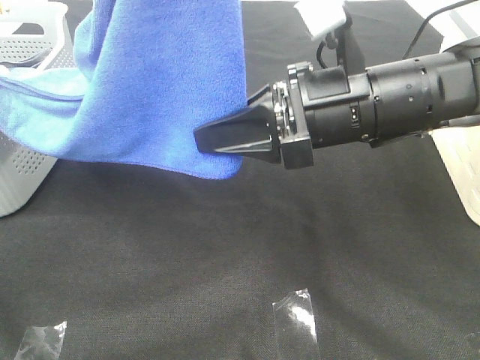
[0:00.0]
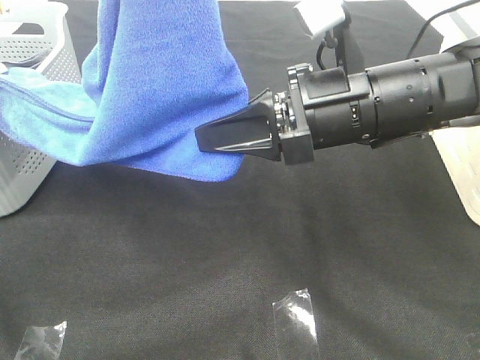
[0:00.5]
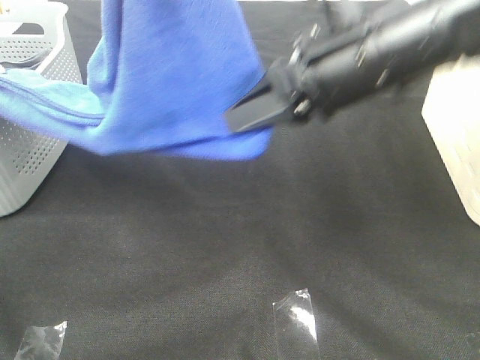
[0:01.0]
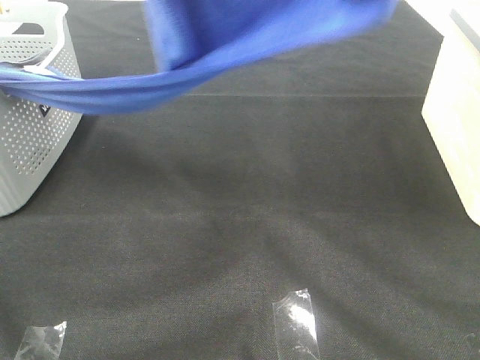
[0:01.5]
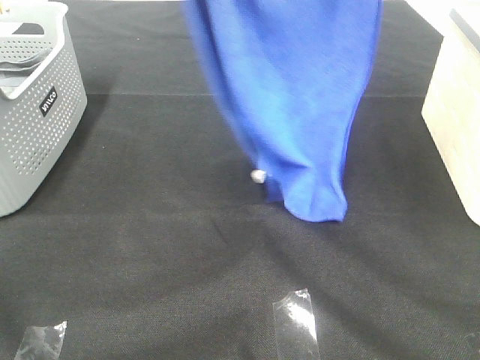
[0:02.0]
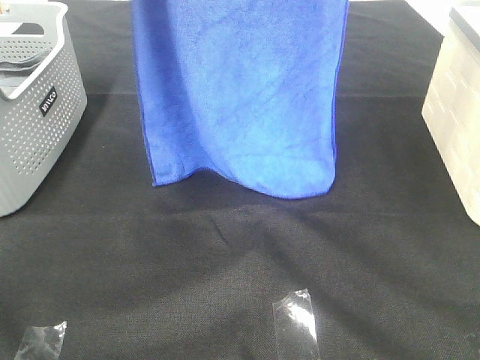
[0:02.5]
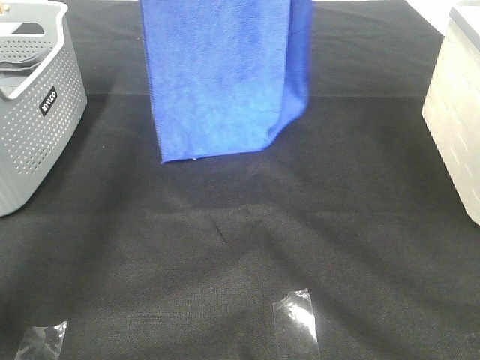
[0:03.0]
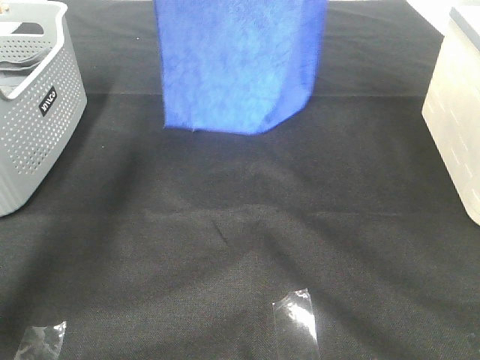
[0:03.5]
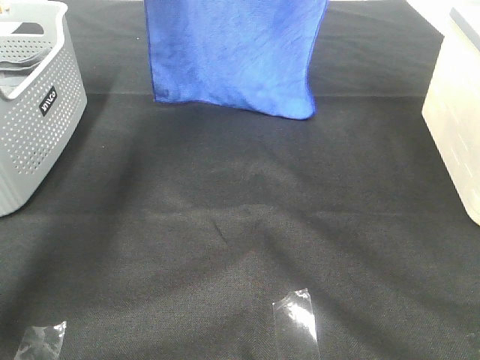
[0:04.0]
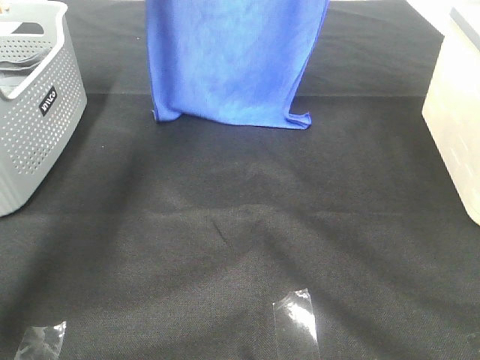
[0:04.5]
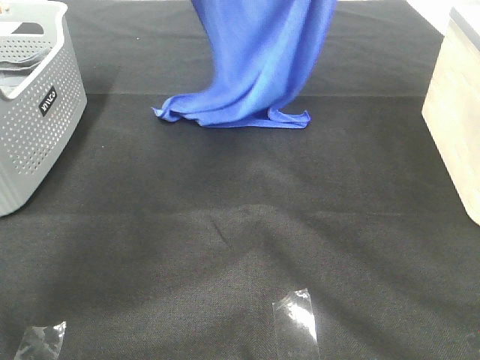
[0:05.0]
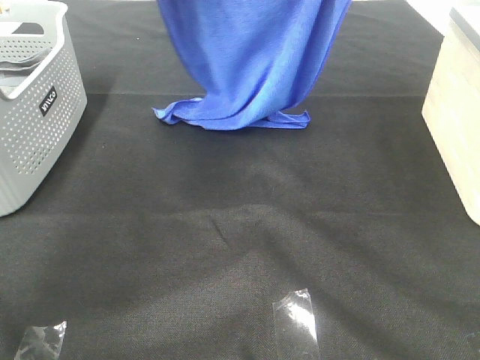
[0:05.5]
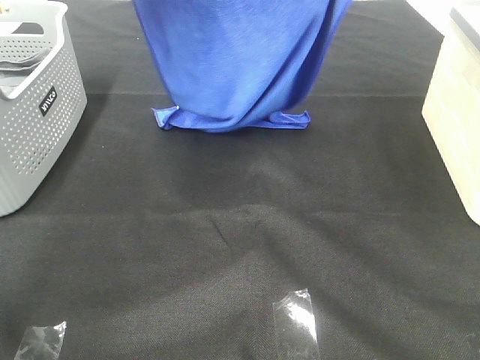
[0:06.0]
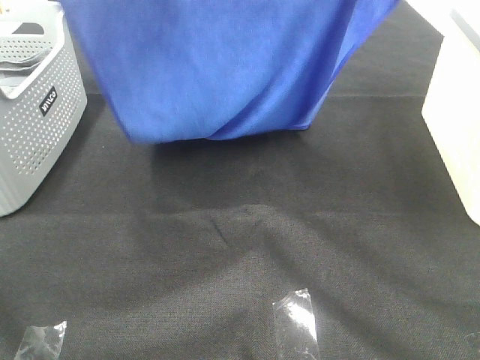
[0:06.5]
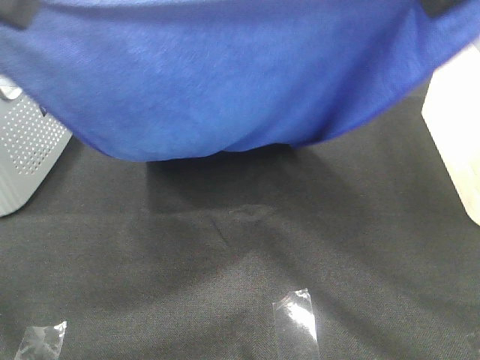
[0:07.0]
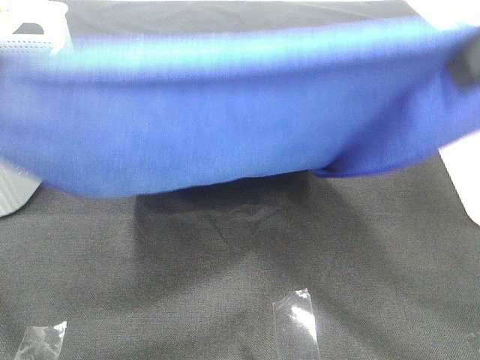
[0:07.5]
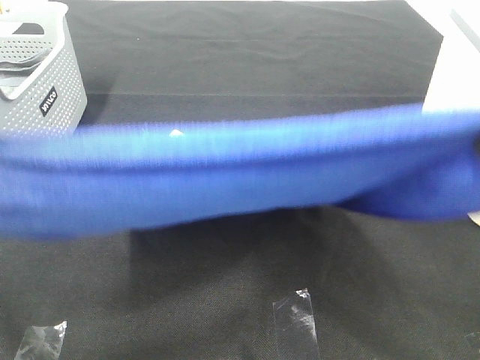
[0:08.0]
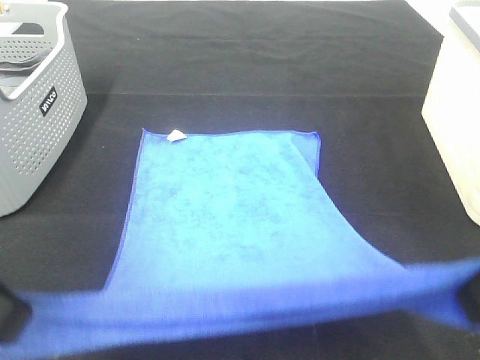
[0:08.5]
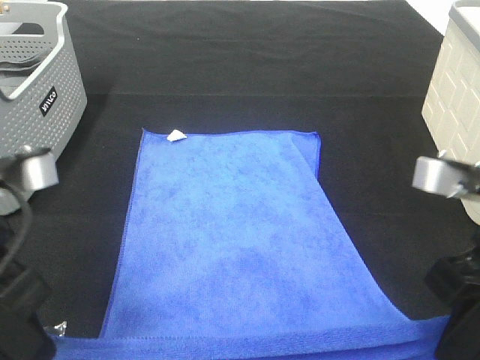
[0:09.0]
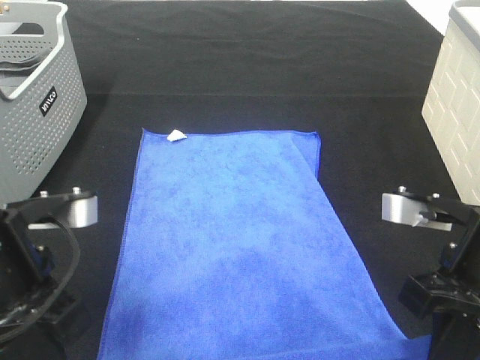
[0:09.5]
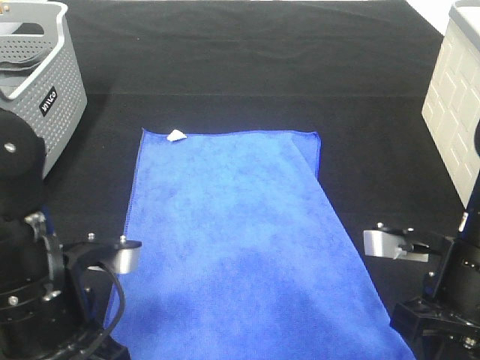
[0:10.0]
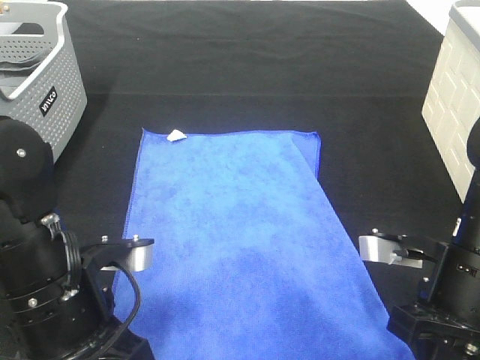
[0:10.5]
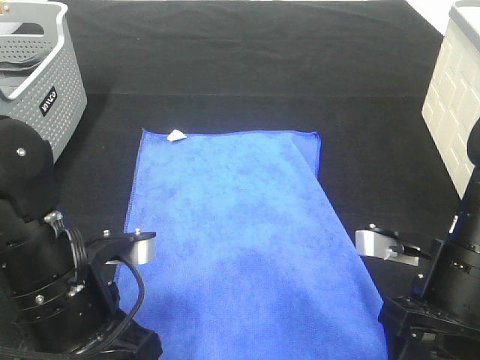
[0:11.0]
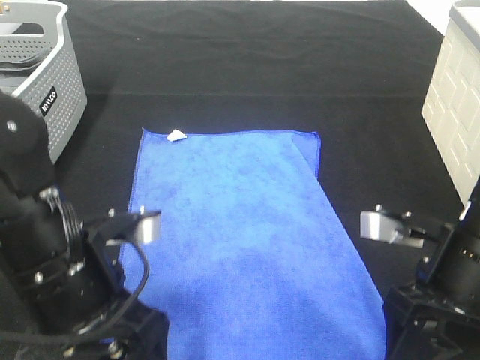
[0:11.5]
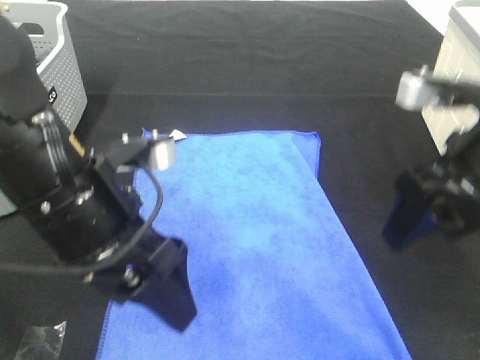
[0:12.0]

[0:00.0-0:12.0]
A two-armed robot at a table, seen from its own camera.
Task of the whole recording: Remove the towel and place it.
Step, 0:01.0 to 0:06.0: Left hand: spread the blue towel flat on the table.
Step, 0:01.0 to 0:06.0: Right hand: spread the blue towel flat on the table.
0:00.0 to 0:02.0: The left gripper moves forward, about 5 cm, while the right gripper is displaced upward by some 30 cm.
0:02.0 to 0:04.0: The right gripper heads forward, covering approximately 15 cm. The left gripper heads forward, covering approximately 20 cm.
0:04.0 to 0:06.0: The two grippers go approximately 10 cm backward.
0:06.0 to 0:08.0: The grippers both shift backward by approximately 25 cm.
0:08.0 to 0:10.0: The two grippers go about 20 cm downward.
0:10.0 to 0:12.0: The left gripper is displaced upward by roughly 5 cm, and opens. The right gripper shifts roughly 10 cm upward, and opens its fingers.

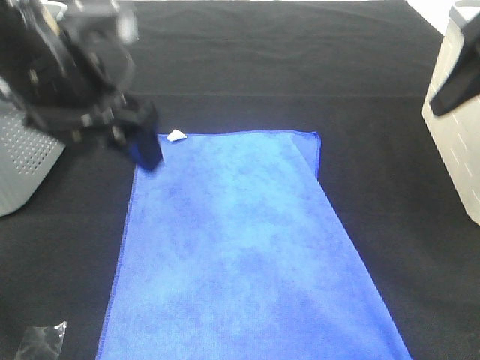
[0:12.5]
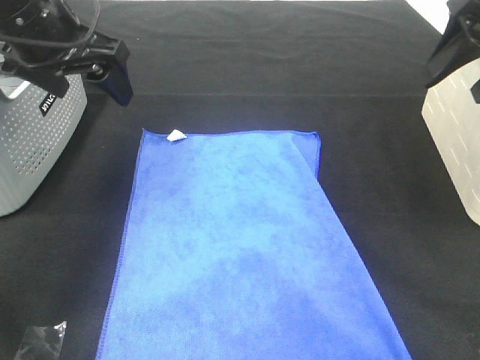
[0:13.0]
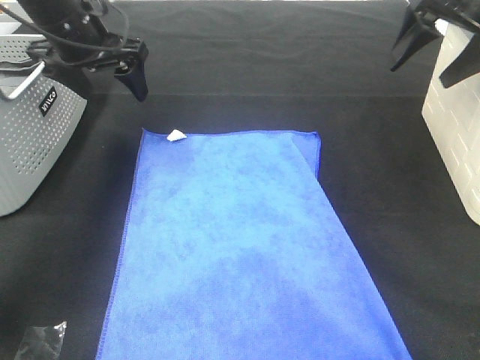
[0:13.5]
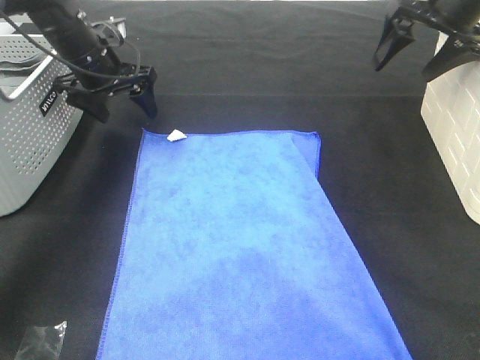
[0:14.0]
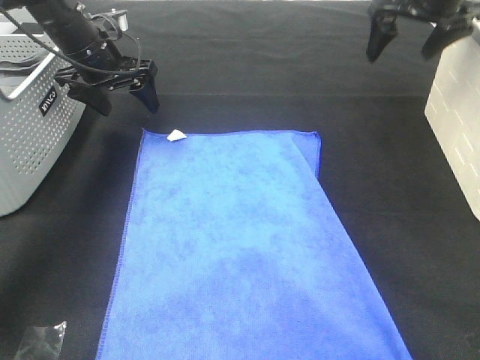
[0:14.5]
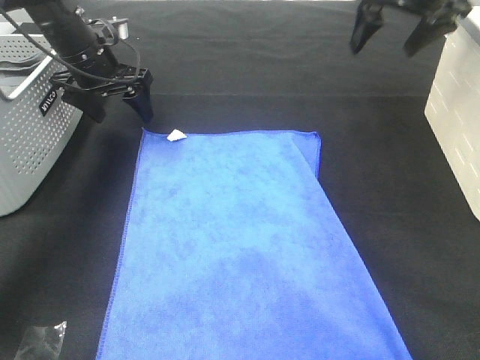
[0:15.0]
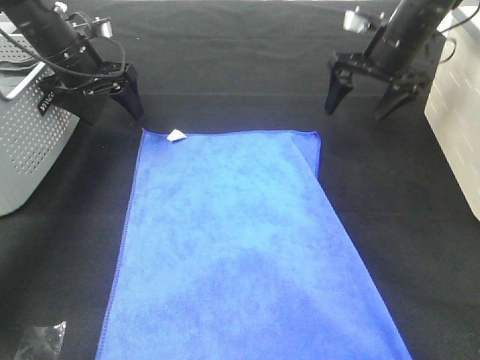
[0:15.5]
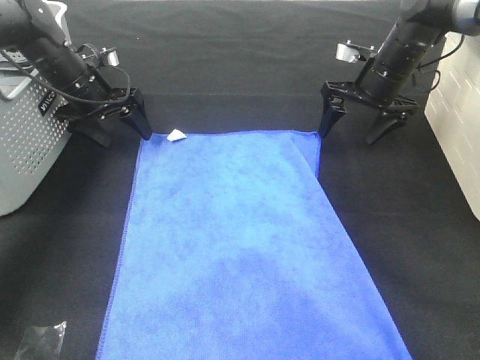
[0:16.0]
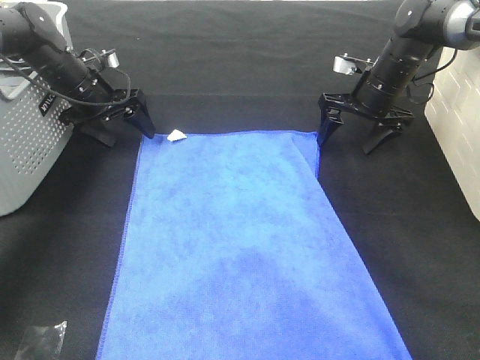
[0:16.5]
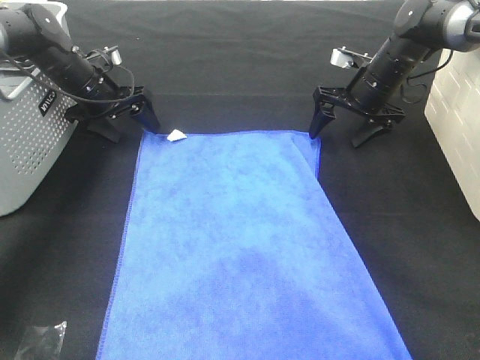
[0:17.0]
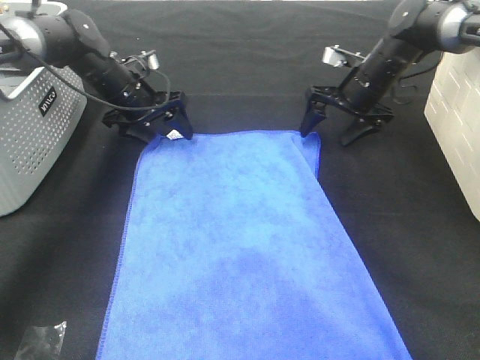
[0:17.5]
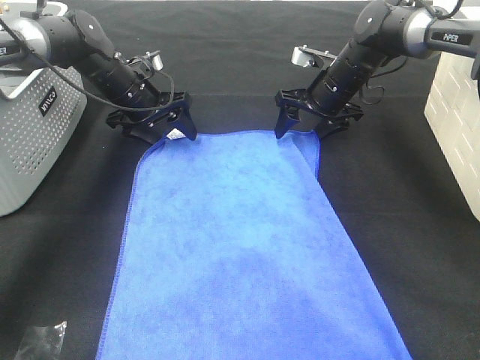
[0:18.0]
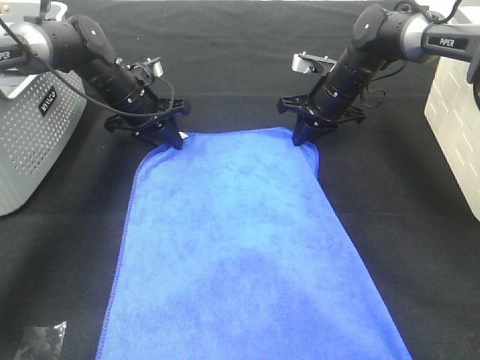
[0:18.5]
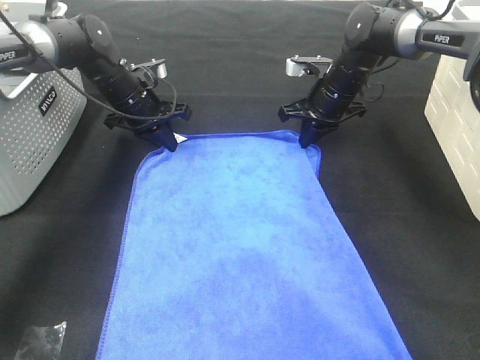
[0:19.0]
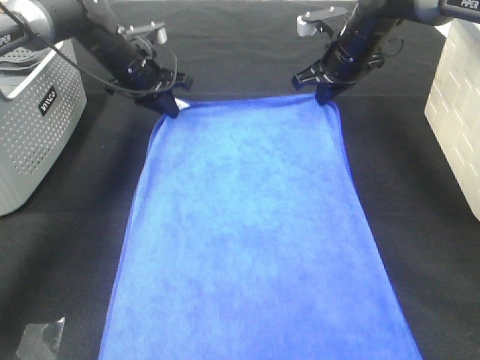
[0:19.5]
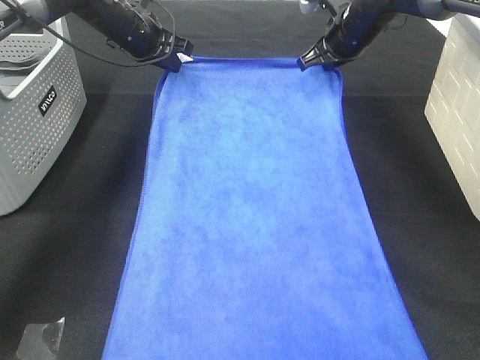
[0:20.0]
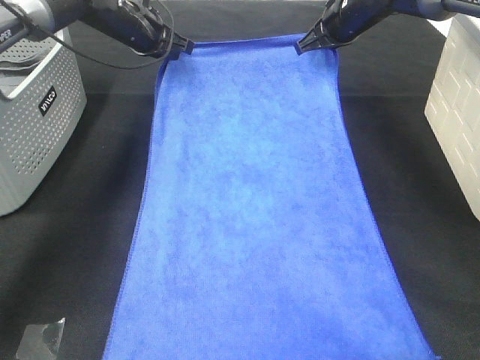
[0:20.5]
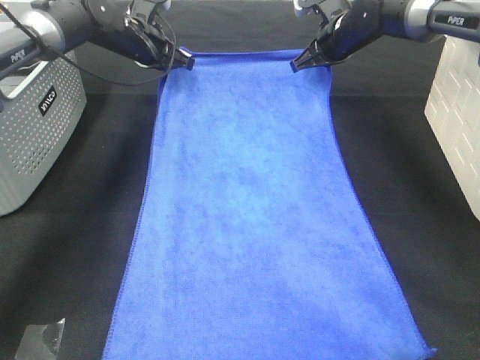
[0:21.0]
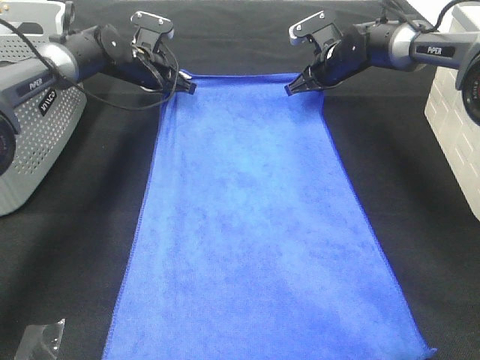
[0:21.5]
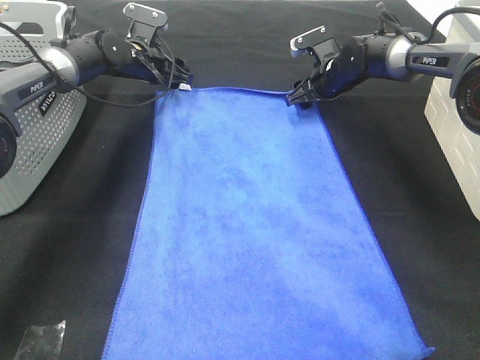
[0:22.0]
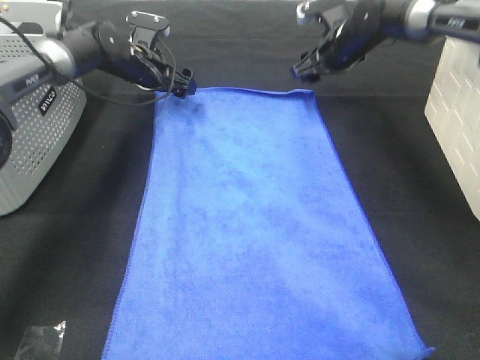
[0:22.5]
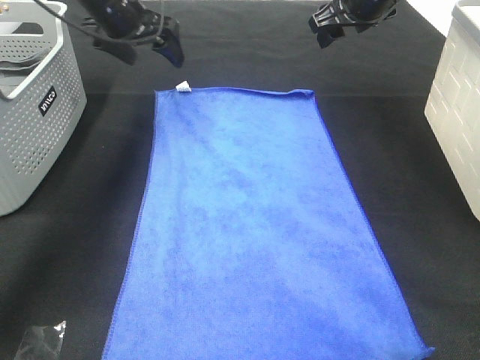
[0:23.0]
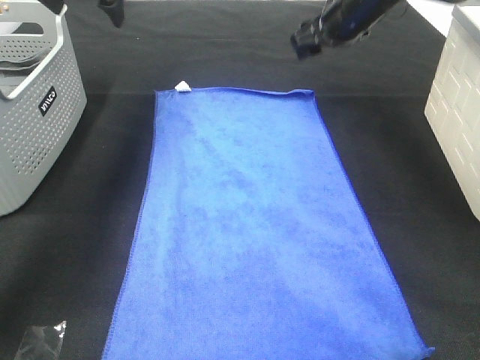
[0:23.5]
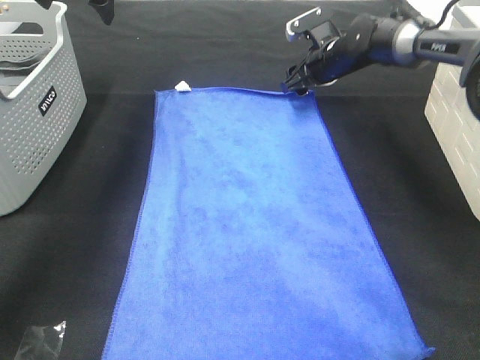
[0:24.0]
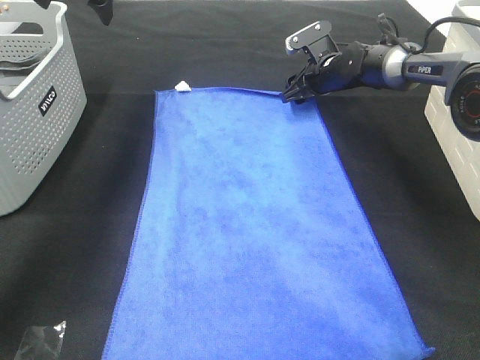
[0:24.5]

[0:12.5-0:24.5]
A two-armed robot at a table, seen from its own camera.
Task of the whole recording: Remove the towel and place it.
Step, 0:12.5 to 0:15.0: Left hand:adjust the blue towel.
Step, 0:12.5 to 0:20.0: Right hand:adjust the blue towel.
0:12.5 to 0:14.5: The right gripper shifts approximately 20 cm forward. The left gripper travels forward and downward by roughly 25 cm.
0:14.5 to 0:16.5: The left gripper shifts about 5 cm downward, while the right gripper is displaced downward by about 15 cm.
0:16.5 to 0:18.5: The left gripper goes approximately 5 cm to the right, and closes. Meanwhile the right gripper heads to the left, covering about 5 cm, and closes its fingers.
0:18.5 to 0:20.5: The right gripper heads upward, covering roughly 10 cm, while the left gripper moves upward and forward, some 10 cm.
0:20.5 to 0:22.5: The left gripper goes approximately 5 cm downward, and opens, while the right gripper moves roughly 10 cm downward and comes back, and opens its fingers.
0:22.5 to 0:24.5: The right gripper heads downward, covering about 10 cm, while the left gripper moves upward, about 20 cm.

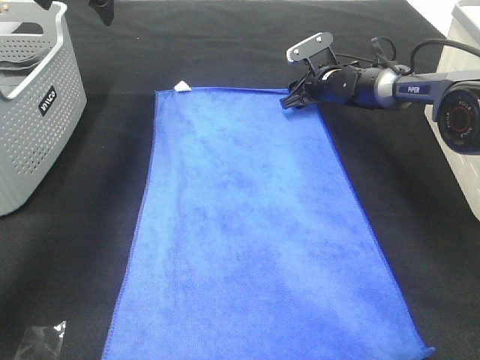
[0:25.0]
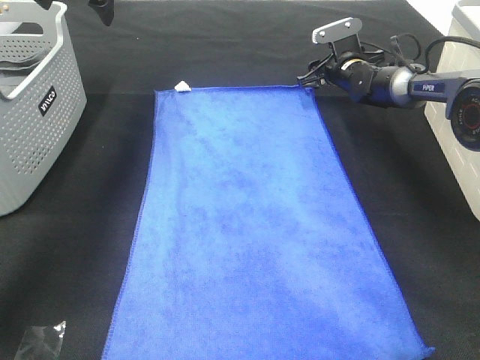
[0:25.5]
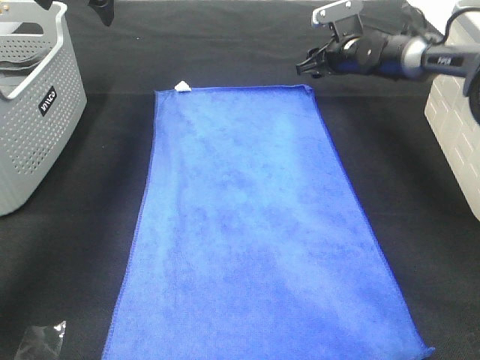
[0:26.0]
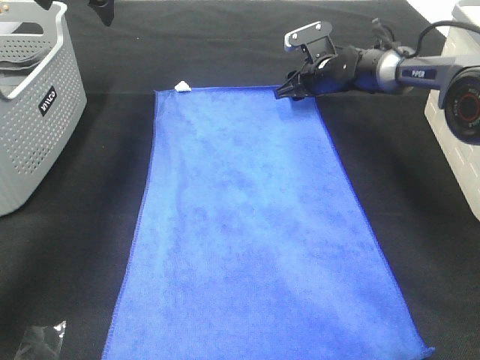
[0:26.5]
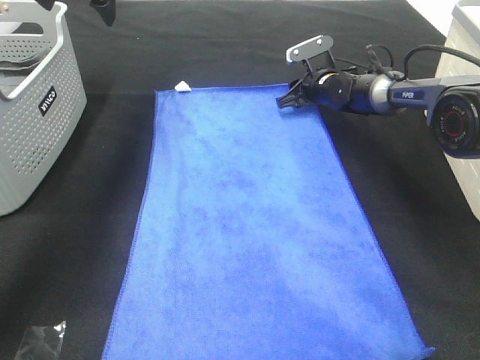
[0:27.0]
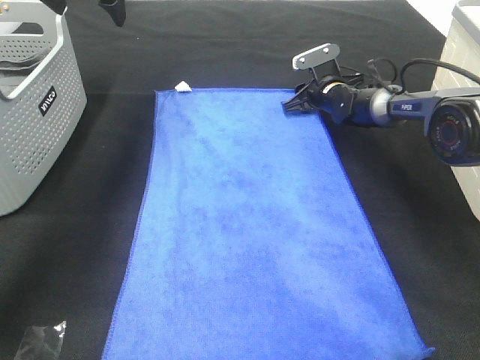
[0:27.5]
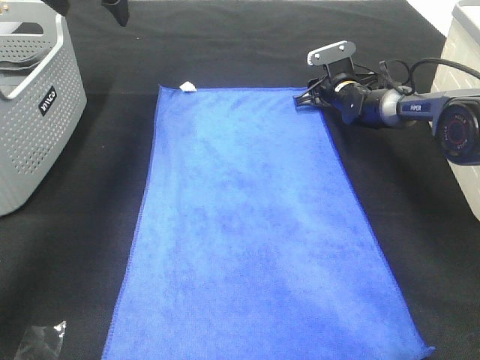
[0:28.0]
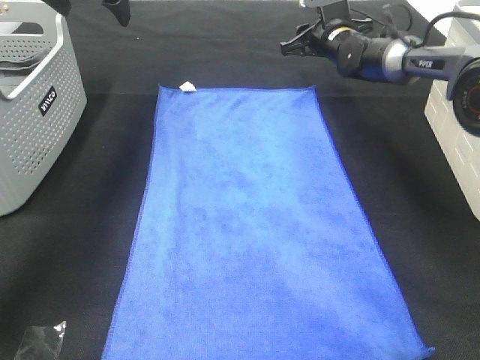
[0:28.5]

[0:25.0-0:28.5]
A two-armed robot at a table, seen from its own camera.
Task of the whole recording: Remove the towel and place it.
0:25.0 to 0:27.0: The grippers make only small movements.
0:27.0 to 0:28.5: The right gripper goes approximately 10 cm upward.
